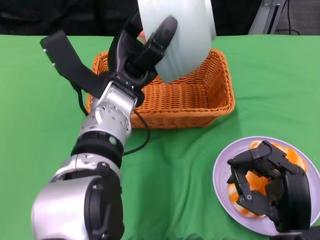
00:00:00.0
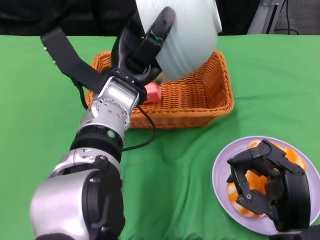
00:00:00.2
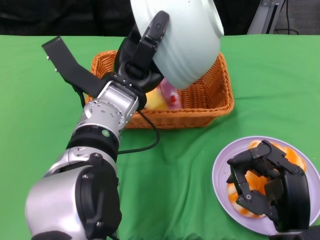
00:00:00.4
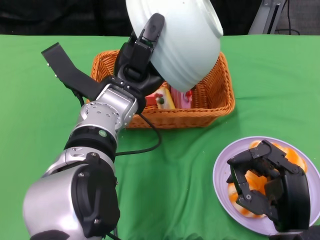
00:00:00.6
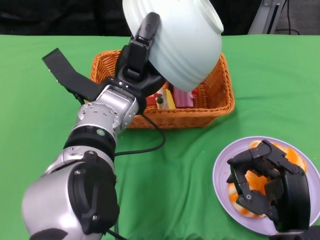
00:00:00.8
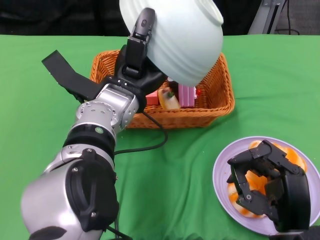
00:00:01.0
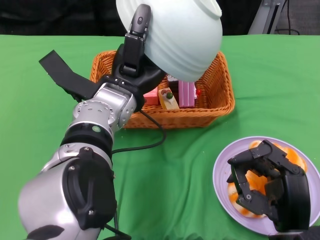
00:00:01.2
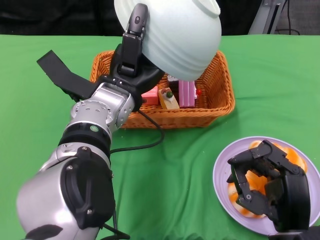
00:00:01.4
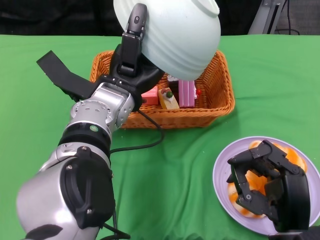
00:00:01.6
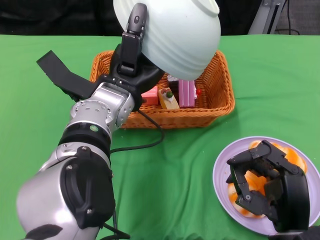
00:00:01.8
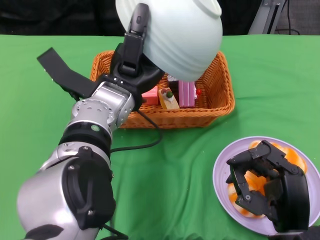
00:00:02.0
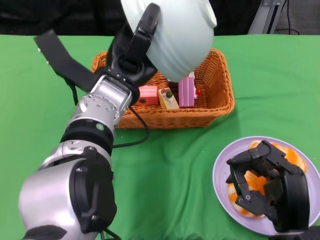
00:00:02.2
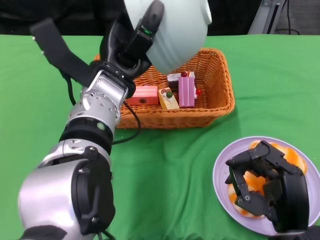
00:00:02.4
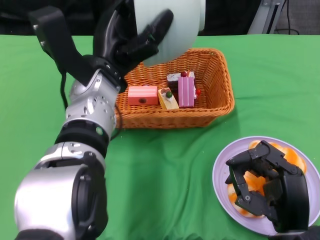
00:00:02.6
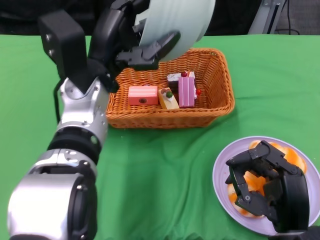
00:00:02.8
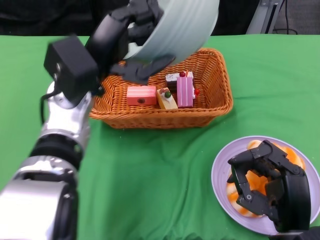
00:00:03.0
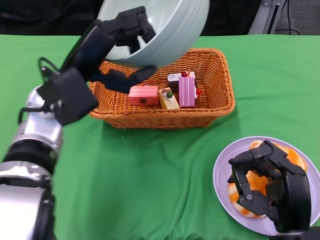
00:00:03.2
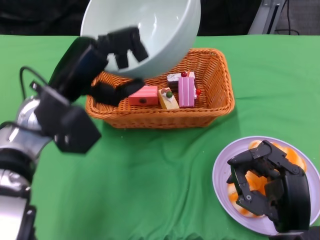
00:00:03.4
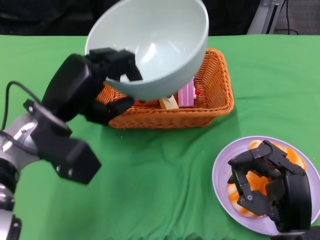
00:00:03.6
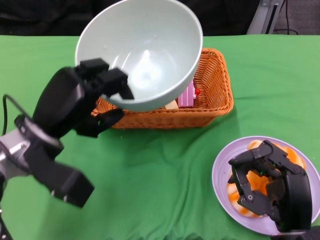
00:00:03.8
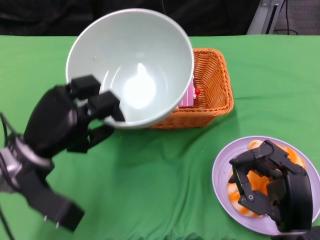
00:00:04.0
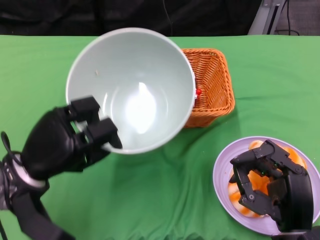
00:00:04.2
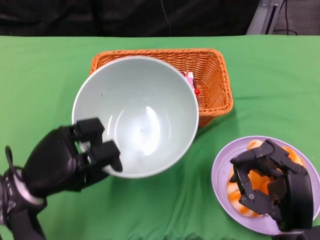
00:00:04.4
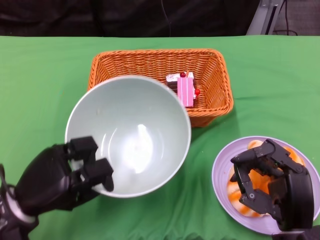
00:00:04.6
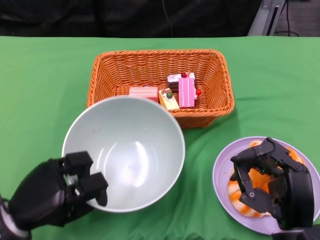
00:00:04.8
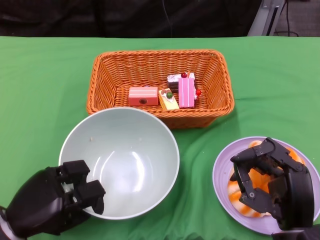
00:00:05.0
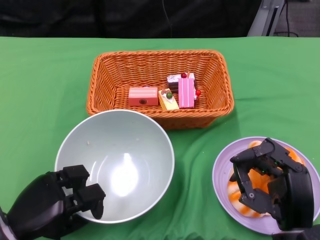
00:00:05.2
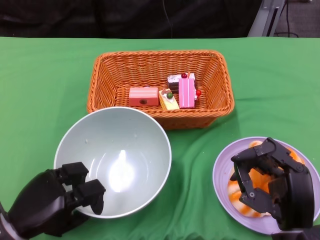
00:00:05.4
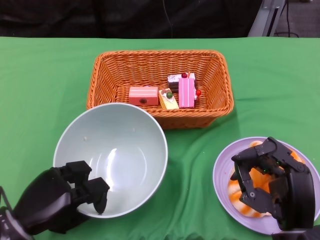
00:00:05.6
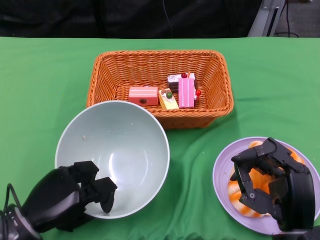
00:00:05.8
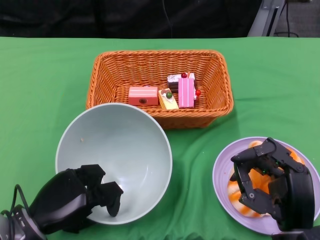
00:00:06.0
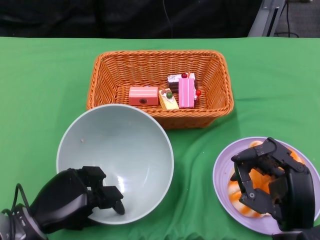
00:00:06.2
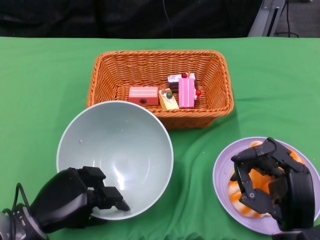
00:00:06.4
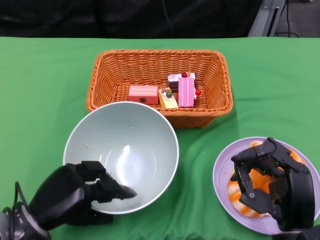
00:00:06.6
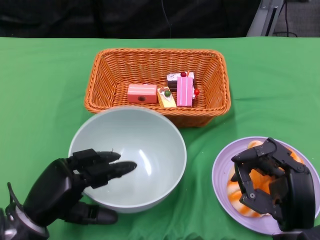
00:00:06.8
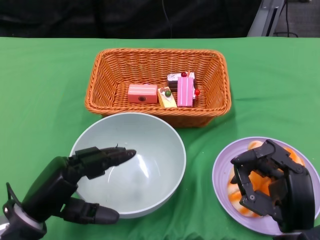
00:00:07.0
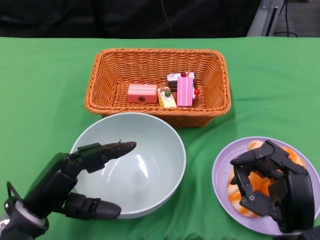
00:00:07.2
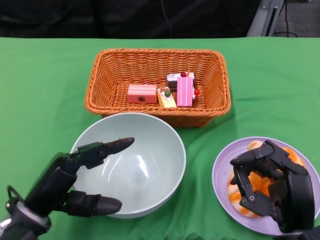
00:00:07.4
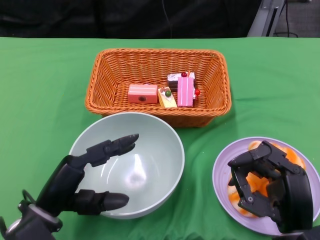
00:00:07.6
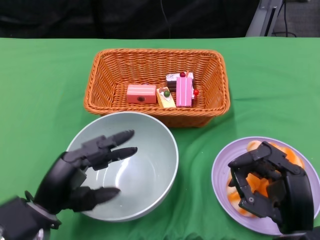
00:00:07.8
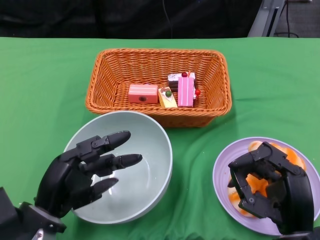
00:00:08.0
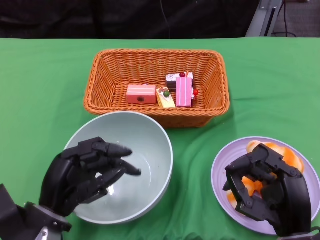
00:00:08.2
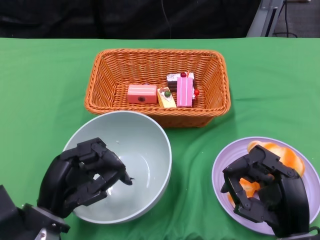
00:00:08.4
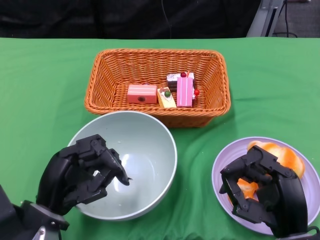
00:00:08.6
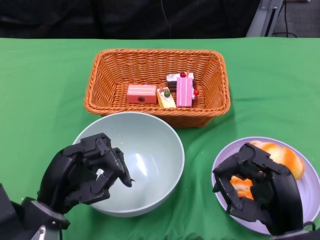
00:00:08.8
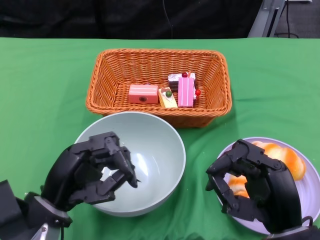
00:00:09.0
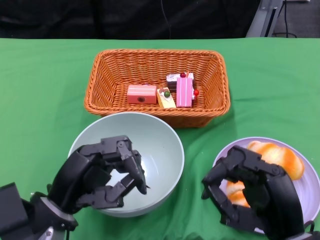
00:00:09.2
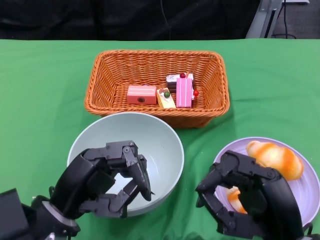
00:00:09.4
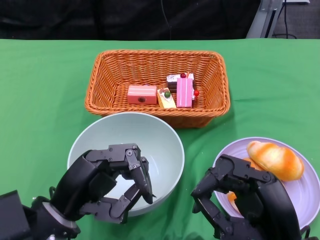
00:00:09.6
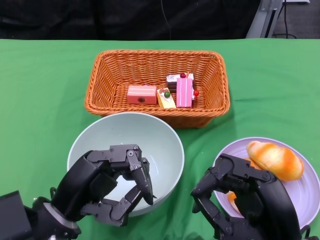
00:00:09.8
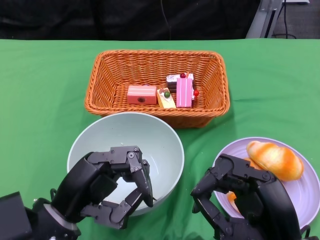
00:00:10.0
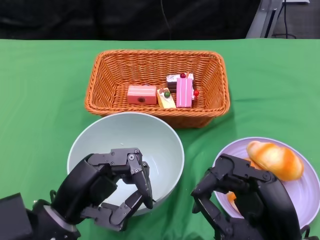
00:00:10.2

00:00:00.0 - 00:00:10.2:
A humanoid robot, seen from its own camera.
Step, 00:00:01.0 - 00:00:06.8: Place the bowl on the table with the left gripper.
00:00:01.4 - 00:00:03.0: The left hand moves some 5 cm.
00:00:03.0 - 00:00:04.4: The left hand shifts roughly 15 cm downward, to the left and backward.
00:00:04.4 - 00:00:05.8: The left hand shifts by about 5 cm.

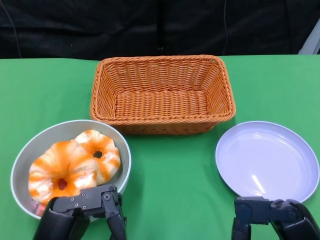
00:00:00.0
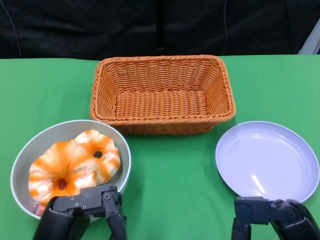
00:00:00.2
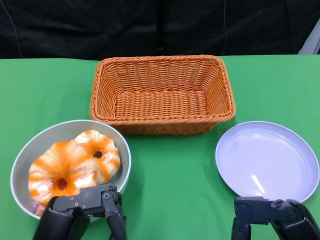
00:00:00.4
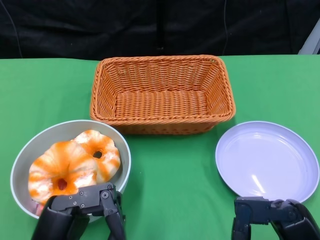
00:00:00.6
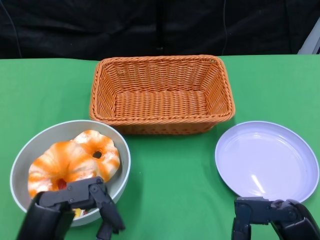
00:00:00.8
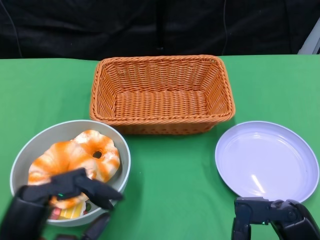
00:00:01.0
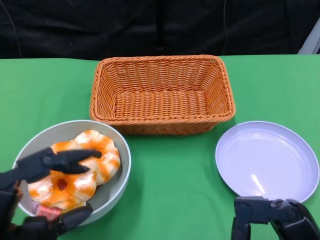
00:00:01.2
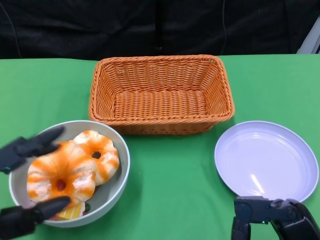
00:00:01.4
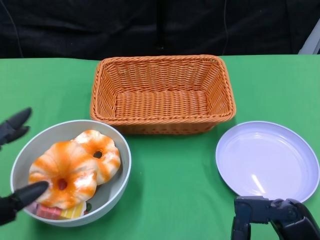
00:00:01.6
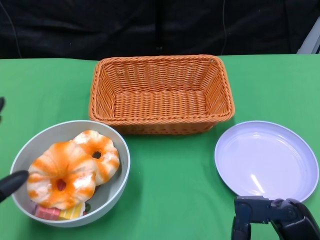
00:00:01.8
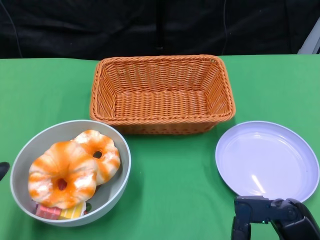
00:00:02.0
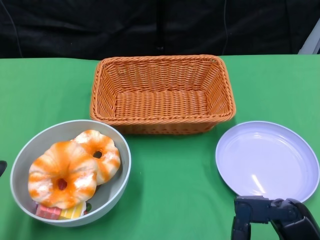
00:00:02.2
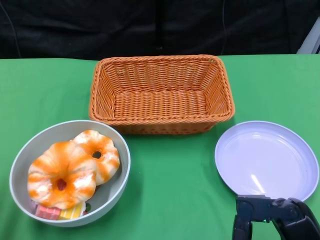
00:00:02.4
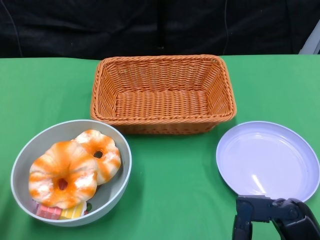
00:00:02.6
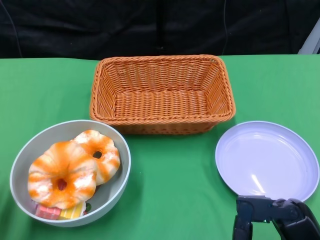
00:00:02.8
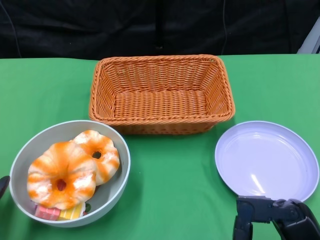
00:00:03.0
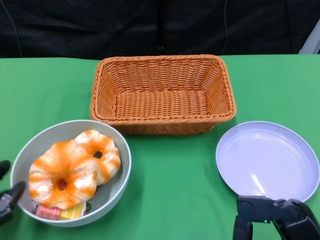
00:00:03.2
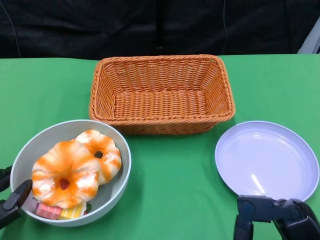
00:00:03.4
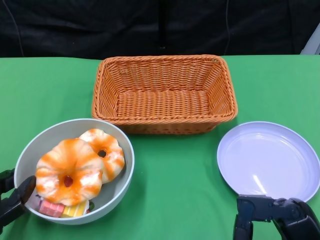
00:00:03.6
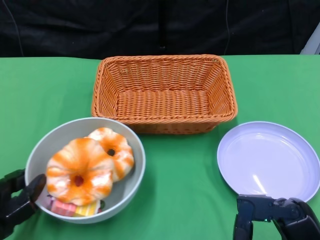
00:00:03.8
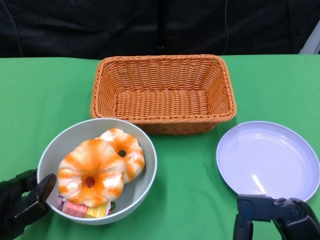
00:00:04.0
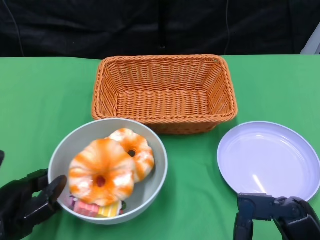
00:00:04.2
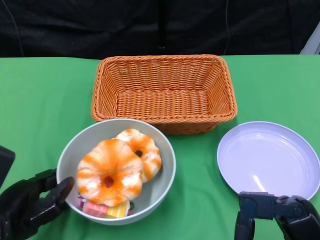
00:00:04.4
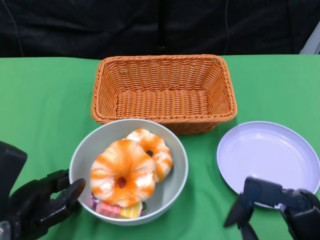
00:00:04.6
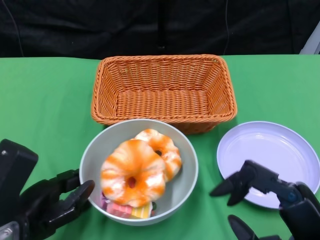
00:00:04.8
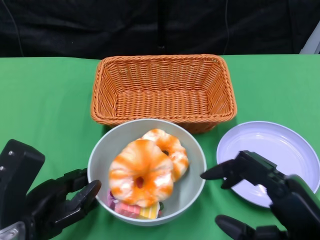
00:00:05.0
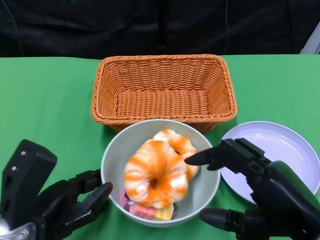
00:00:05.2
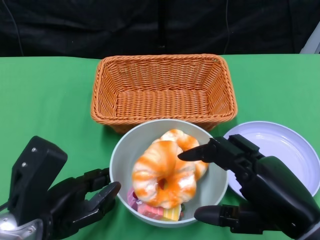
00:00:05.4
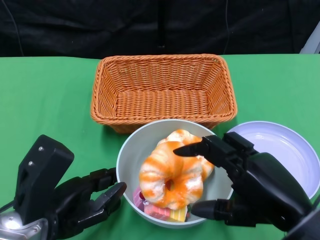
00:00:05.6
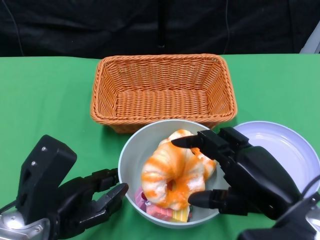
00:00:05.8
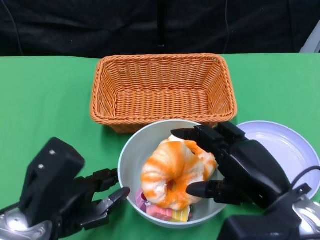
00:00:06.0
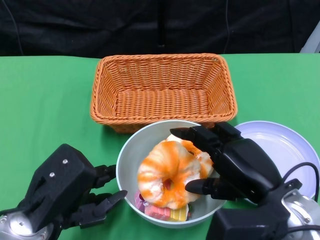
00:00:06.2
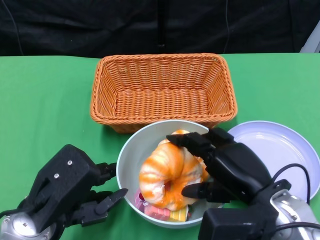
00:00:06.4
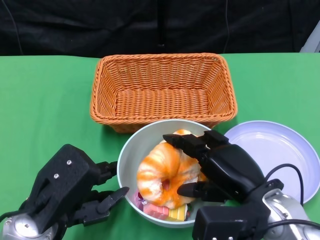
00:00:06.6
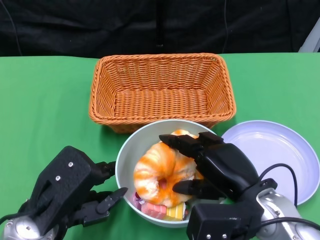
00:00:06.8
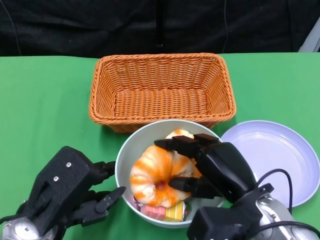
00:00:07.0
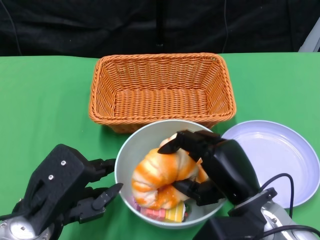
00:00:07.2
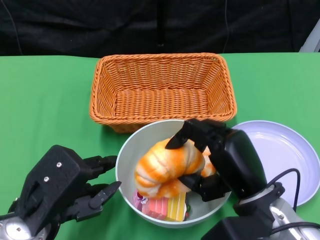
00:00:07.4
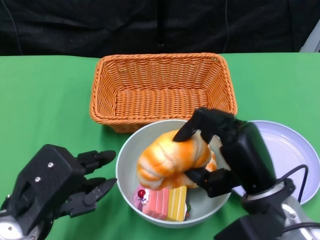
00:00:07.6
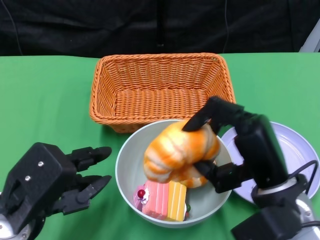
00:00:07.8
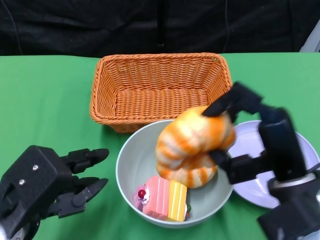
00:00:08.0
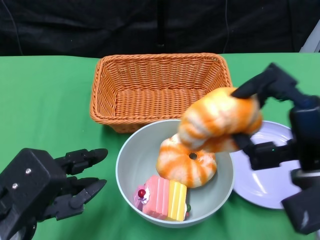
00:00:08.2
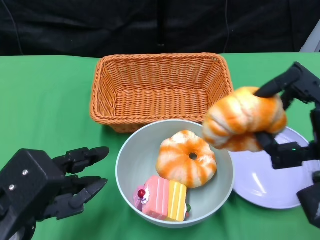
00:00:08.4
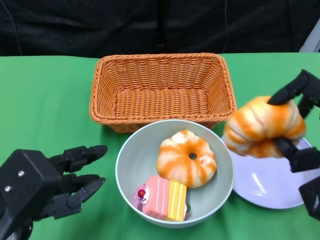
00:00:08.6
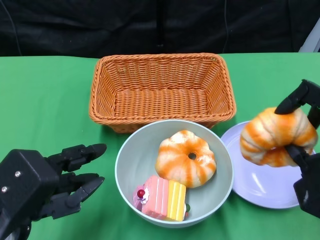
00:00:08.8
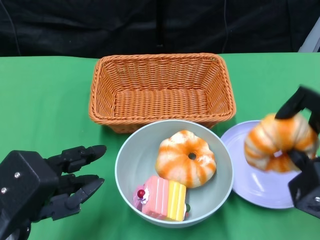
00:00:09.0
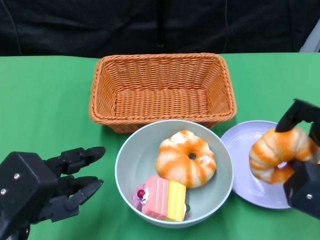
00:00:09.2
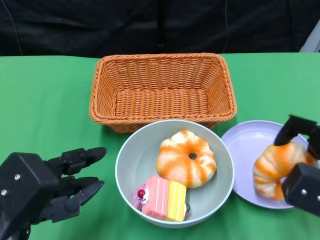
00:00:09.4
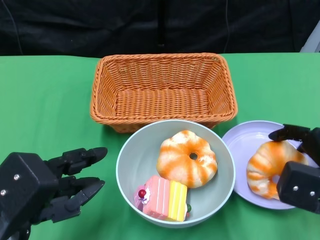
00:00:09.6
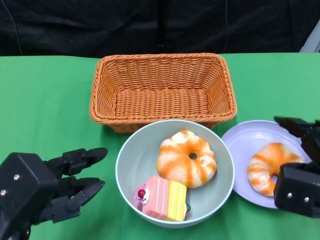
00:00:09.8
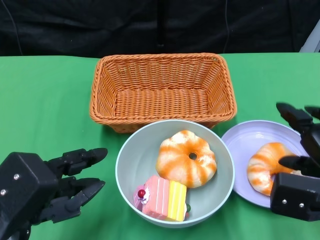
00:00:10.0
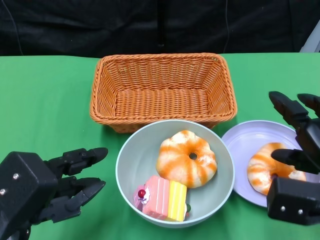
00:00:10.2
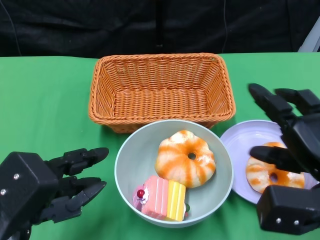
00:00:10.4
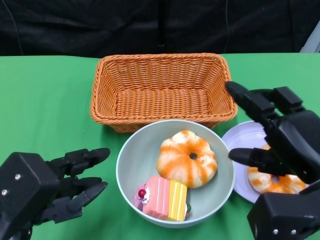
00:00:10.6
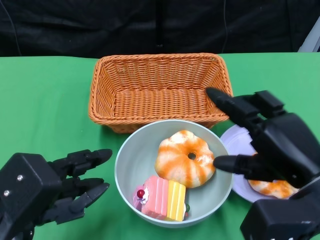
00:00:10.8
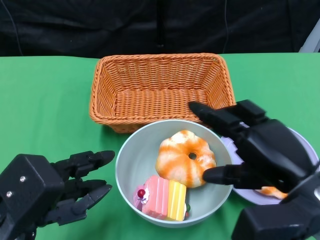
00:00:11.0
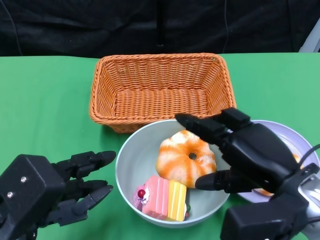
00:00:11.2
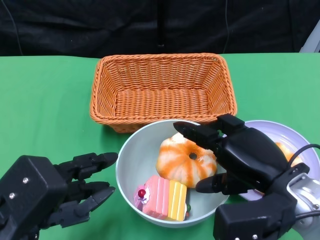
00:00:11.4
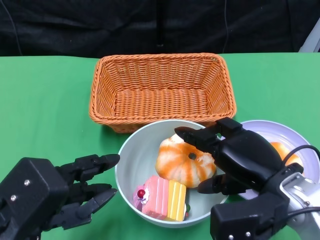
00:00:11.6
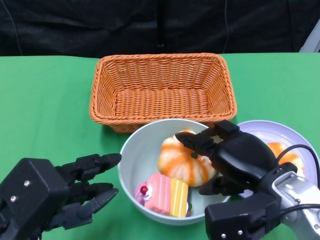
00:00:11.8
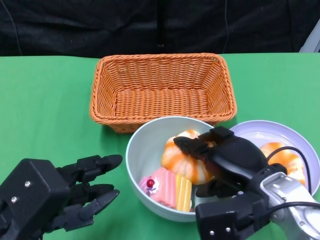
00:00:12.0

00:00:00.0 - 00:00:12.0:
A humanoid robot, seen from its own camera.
Step, 00:00:00.0 - 00:00:06.0: Push the bowl to the center of the table using the left gripper.
00:00:01.6 - 00:00:03.0: The left hand shifts by approximately 5 cm.
00:00:03.0 - 00:00:04.4: The left hand heads to the right, covering about 5 cm.
00:00:04.4 - 00:00:06.0: The left hand shifts roughly 5 cm to the right; the right hand shifts about 10 cm forward.
00:00:07.6 - 00:00:09.0: The right hand goes roughly 10 cm to the right.
00:00:10.4 - 00:00:12.0: The right hand travels to the left by some 10 cm.
